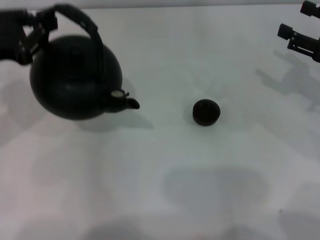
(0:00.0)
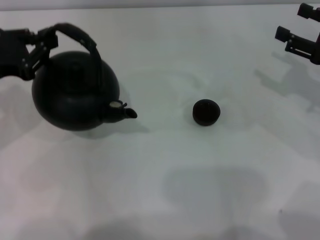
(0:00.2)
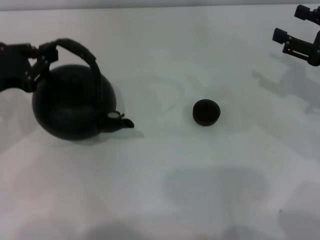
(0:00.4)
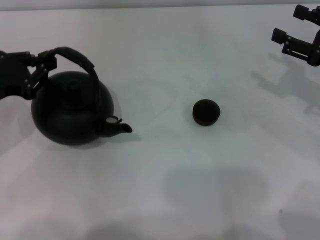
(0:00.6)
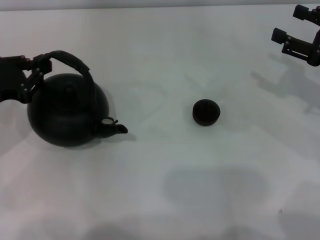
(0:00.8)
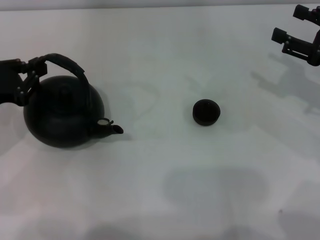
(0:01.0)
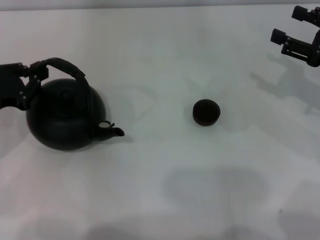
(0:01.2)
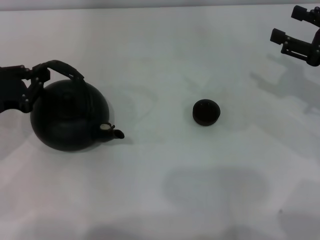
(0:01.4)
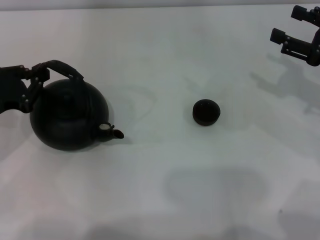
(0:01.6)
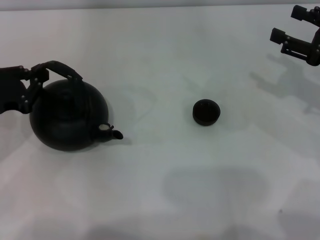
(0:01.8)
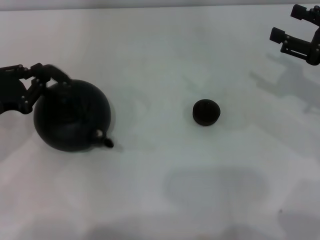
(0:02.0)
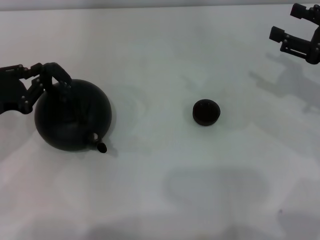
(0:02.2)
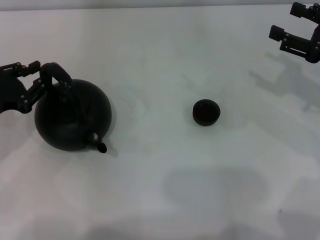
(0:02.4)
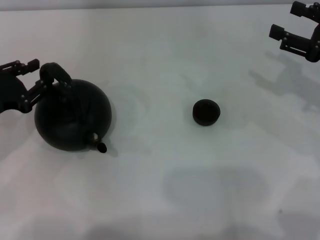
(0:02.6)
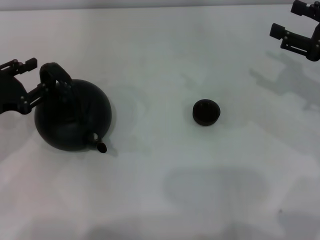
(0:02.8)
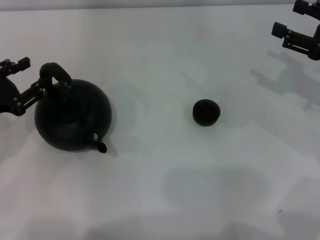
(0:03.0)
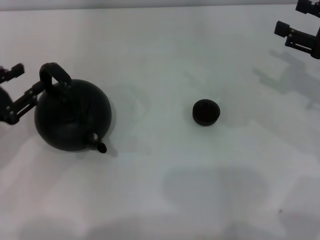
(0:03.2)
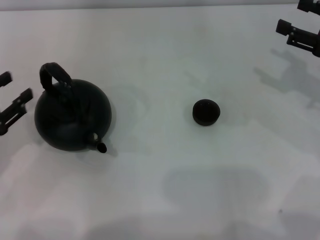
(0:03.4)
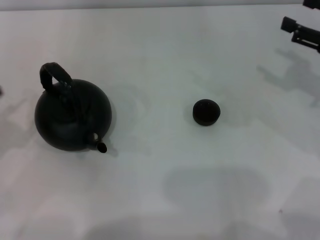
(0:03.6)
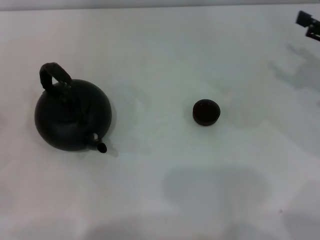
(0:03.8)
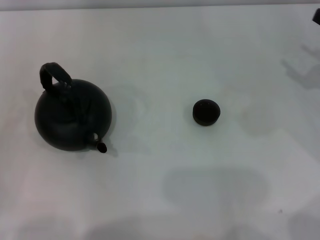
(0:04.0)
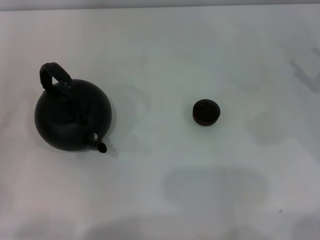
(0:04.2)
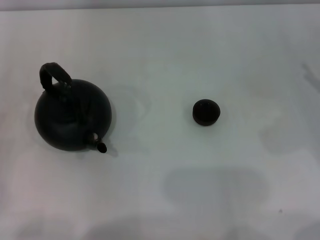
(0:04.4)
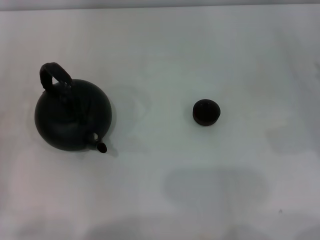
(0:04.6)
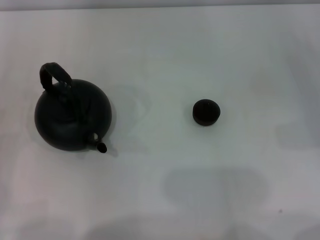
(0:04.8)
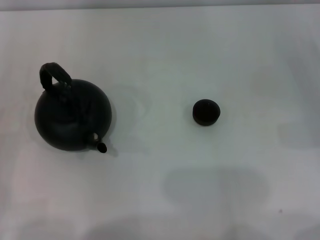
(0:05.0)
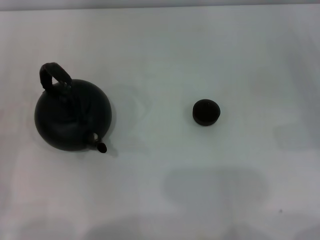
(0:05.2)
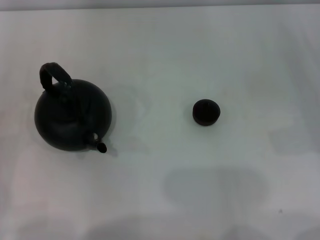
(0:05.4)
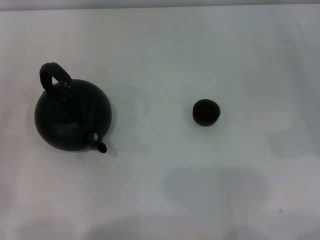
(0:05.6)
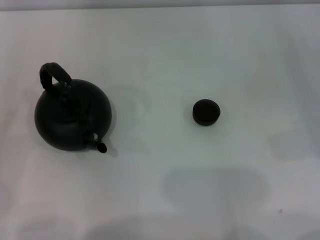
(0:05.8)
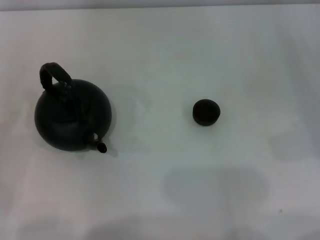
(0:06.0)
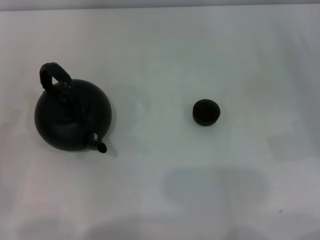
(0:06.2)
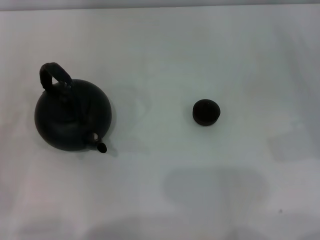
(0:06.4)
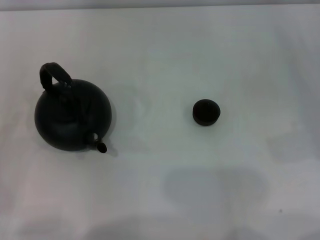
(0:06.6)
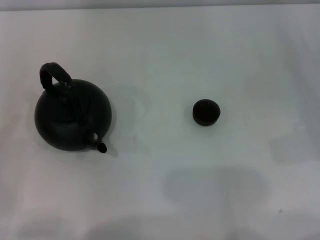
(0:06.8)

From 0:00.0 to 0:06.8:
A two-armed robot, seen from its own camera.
Task of the whole recording: Grasp the handle of the teapot with one hand and pour tea into the teacup.
Step, from 0:00.0 to 0:03.0: Put down the teapot with the left gripper.
From 0:00.0 to 0:01.4: The left gripper shifts roughly 10 cm downward.
From 0:01.4 to 0:02.8: The left gripper opens.
From 0:02.8 to 0:04.0: The left gripper is displaced backward and to the left by some 15 cm.

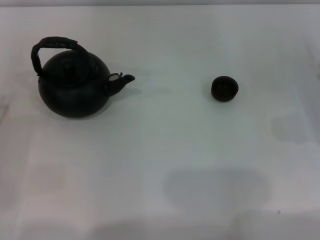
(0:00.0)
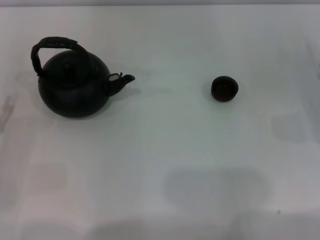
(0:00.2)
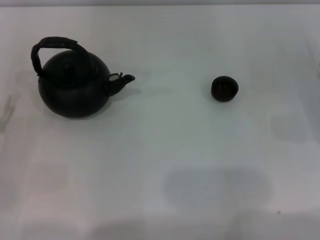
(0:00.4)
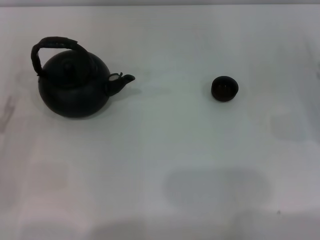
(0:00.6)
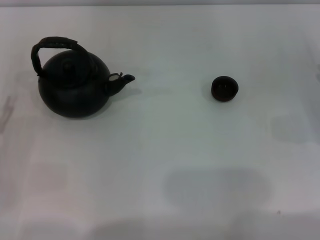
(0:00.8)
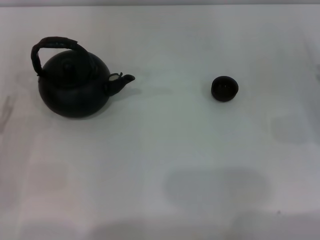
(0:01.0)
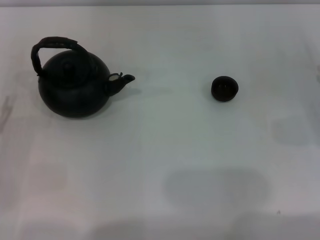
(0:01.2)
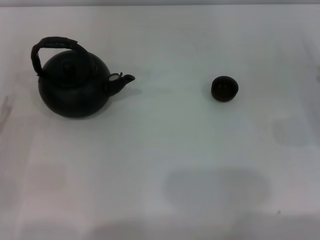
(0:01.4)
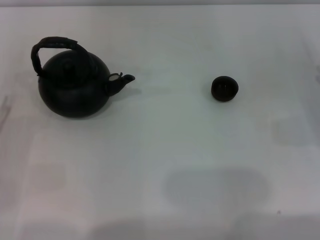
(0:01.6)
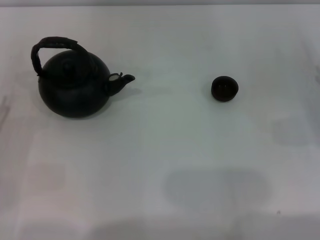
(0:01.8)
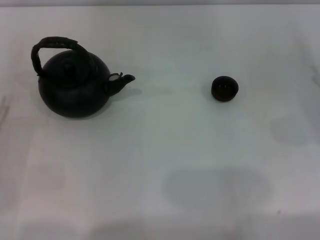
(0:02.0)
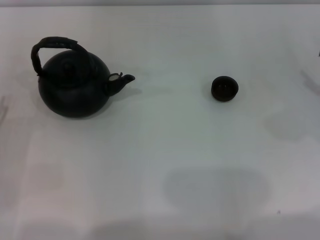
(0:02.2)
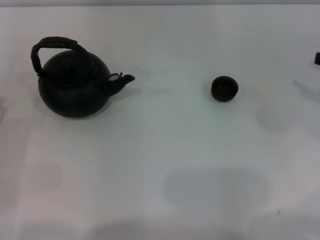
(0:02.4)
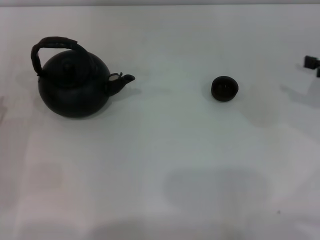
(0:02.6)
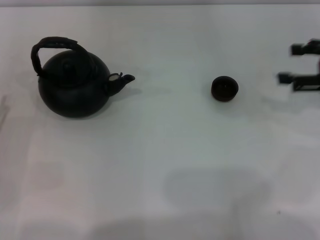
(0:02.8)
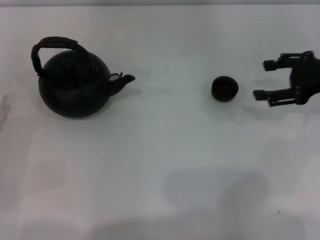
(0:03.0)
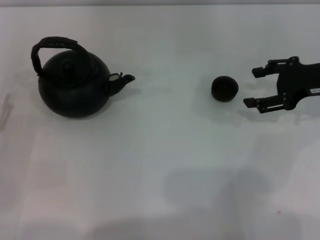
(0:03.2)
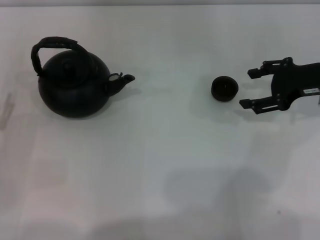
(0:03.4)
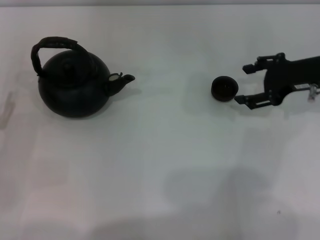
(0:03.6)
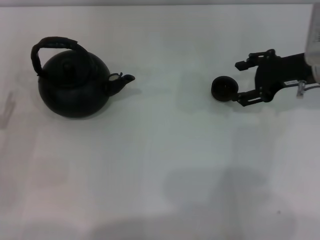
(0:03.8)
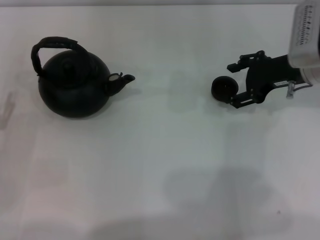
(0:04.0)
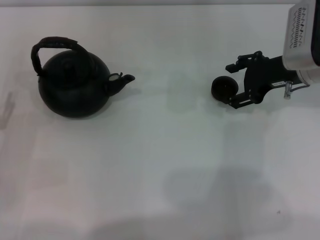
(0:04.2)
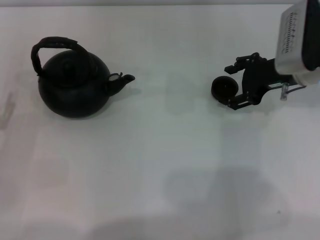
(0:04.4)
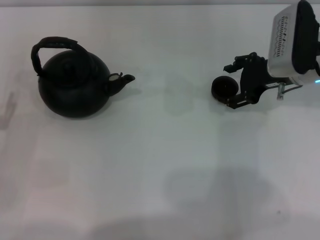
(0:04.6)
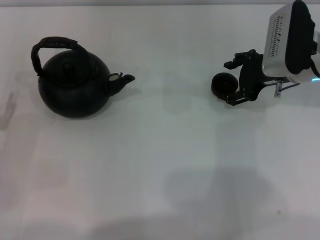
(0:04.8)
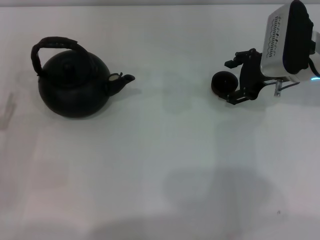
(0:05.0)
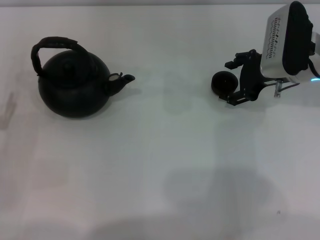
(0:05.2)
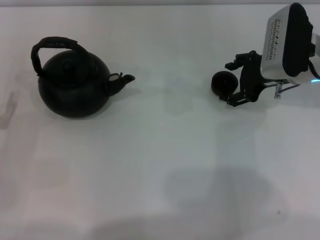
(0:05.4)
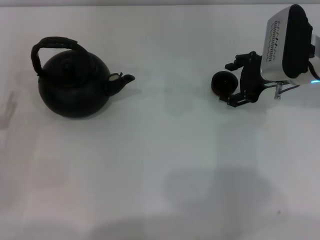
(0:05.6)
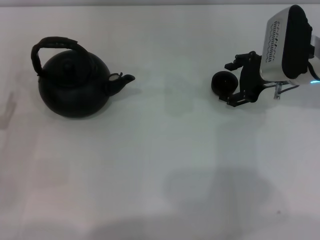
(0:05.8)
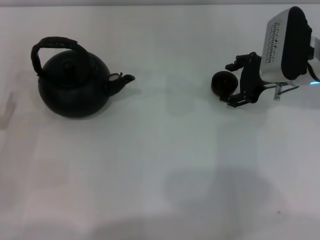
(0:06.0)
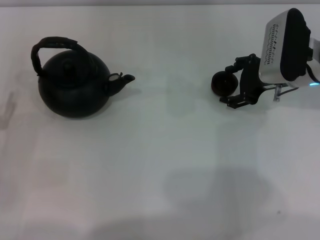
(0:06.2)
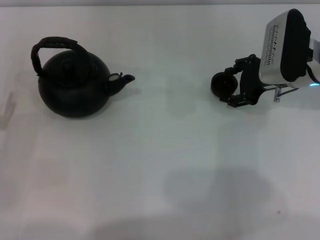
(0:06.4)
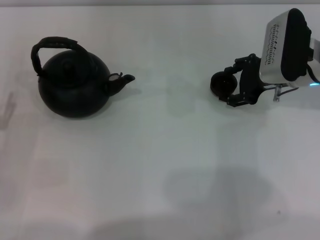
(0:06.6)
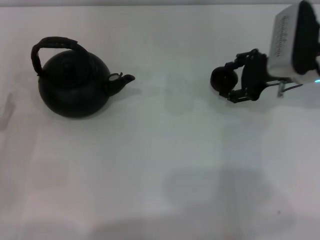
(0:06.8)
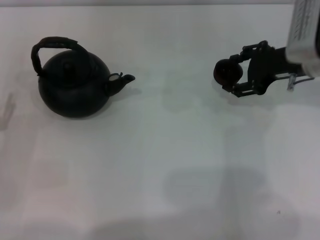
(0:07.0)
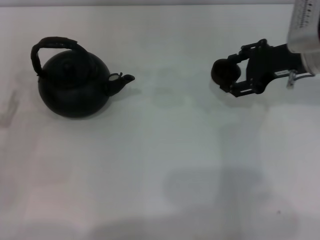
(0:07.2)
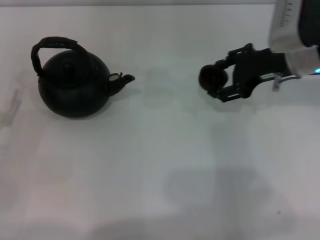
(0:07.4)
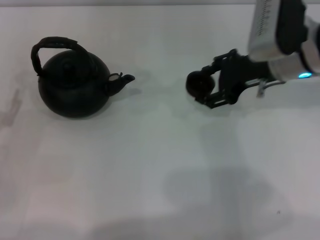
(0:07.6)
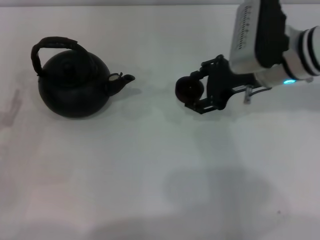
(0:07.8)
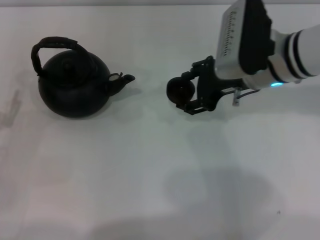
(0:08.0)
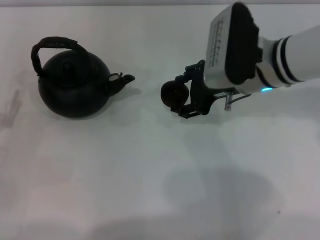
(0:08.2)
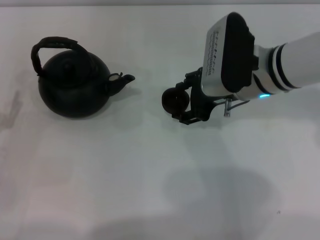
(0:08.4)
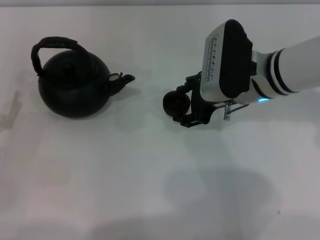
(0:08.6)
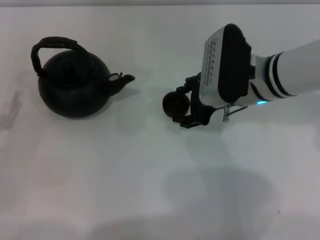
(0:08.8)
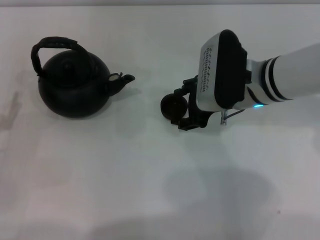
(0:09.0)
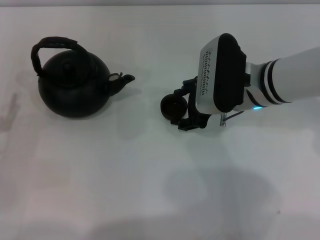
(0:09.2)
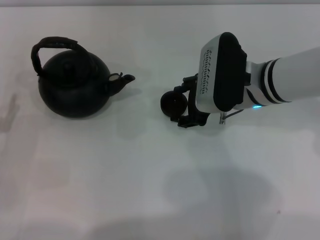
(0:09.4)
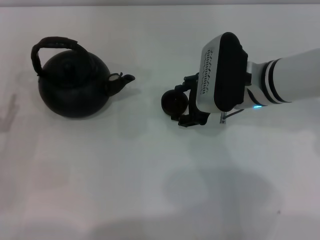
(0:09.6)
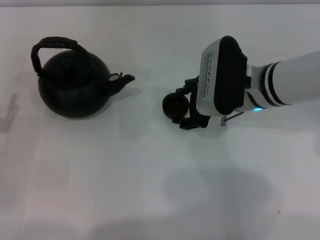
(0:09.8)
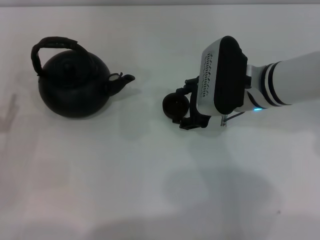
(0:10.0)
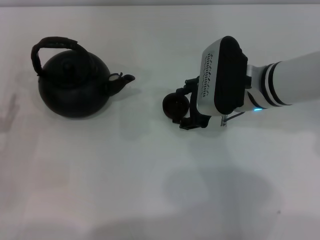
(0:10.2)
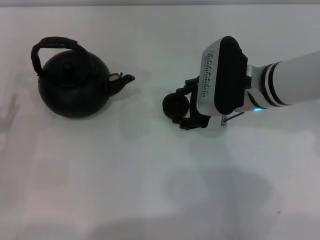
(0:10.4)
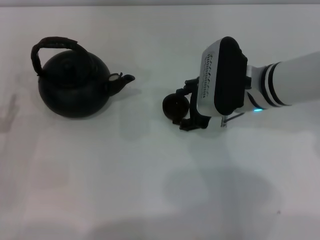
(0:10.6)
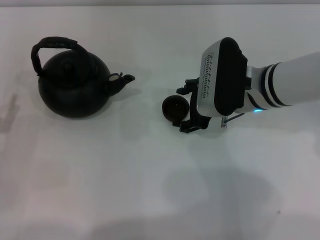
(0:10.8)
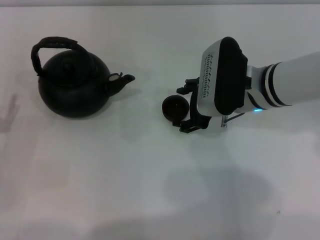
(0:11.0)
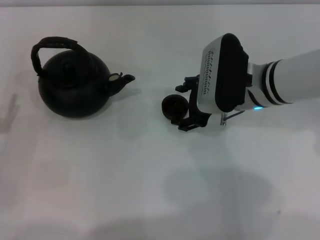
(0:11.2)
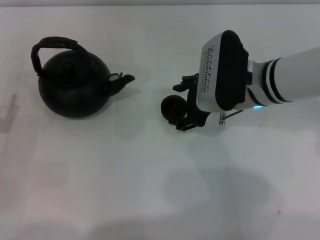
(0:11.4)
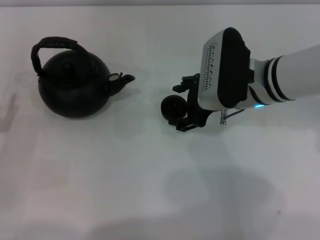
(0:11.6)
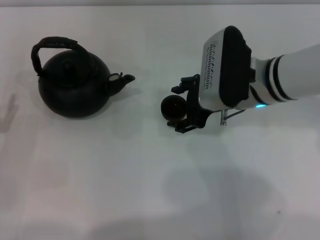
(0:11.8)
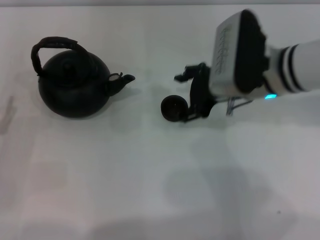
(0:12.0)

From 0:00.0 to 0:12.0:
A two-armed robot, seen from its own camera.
Task of the whole recording: Grasp the handle of the teapot with one hand and pour tea into the teacup.
Step, from 0:00.0 to 0:06.8: Pick up the teacup with the right gripper.
From 0:00.0 to 0:01.6: Both grippers stay about where they are.
From 0:01.6 to 0:03.0: The right gripper moves upward, forward and to the left, roughly 15 cm.
From 0:03.0 to 0:04.4: The right gripper shifts about 10 cm to the left.
From 0:04.4 to 0:06.0: The grippers move only a little.
From 0:06.0 to 0:07.6: The right gripper changes place by some 5 cm, and closes its fingers.
From 0:07.6 to 0:09.0: The right gripper travels to the left by roughly 5 cm.
From 0:09.0 to 0:10.4: Both grippers stay put.
From 0:10.4 to 0:12.0: The right gripper opens up.

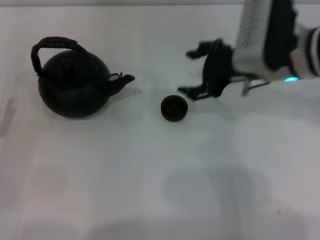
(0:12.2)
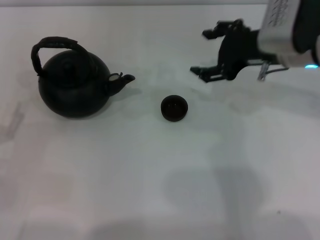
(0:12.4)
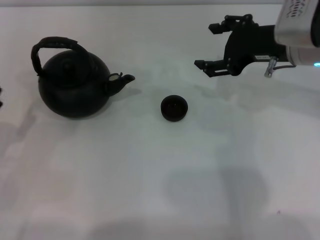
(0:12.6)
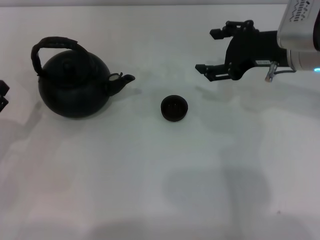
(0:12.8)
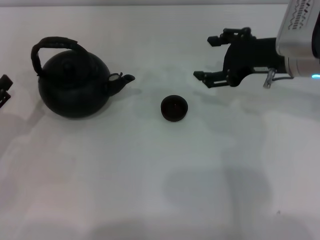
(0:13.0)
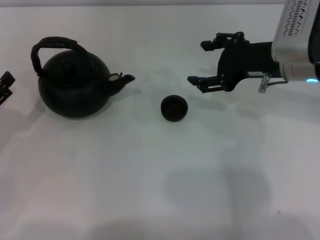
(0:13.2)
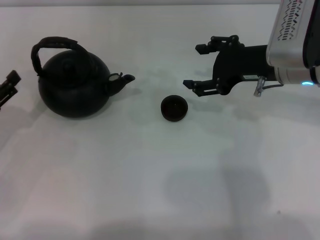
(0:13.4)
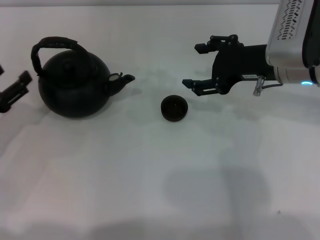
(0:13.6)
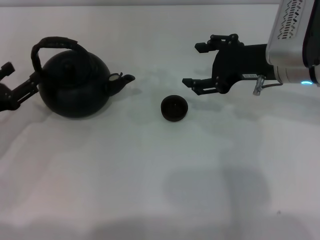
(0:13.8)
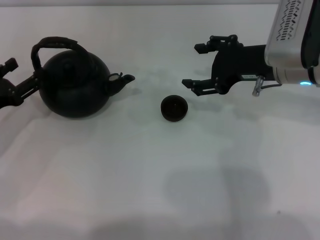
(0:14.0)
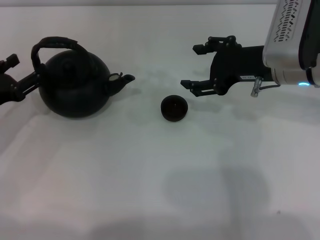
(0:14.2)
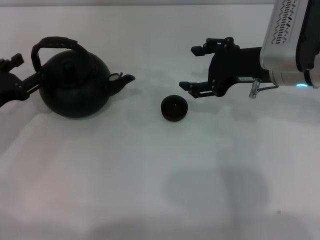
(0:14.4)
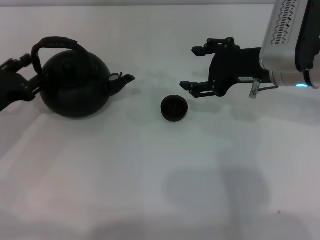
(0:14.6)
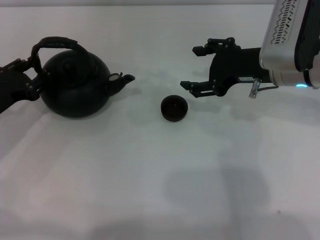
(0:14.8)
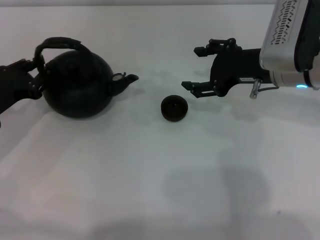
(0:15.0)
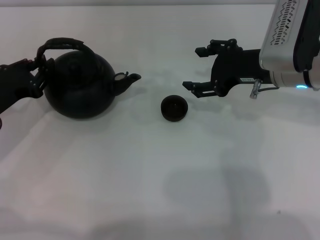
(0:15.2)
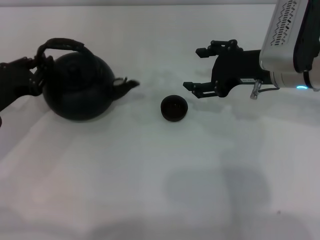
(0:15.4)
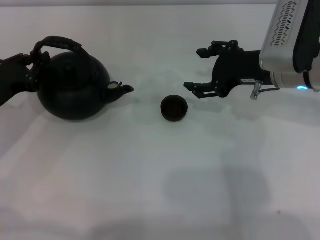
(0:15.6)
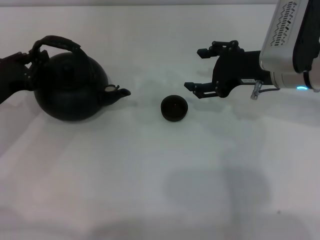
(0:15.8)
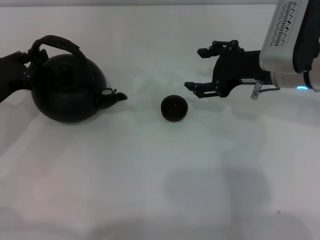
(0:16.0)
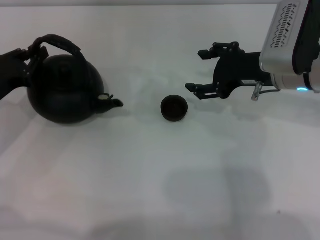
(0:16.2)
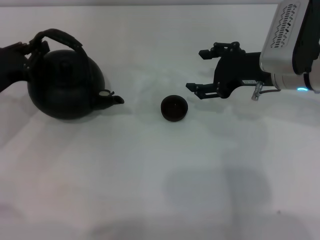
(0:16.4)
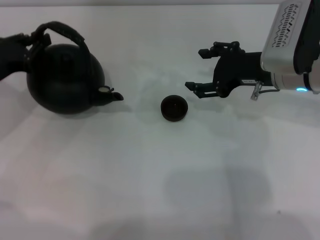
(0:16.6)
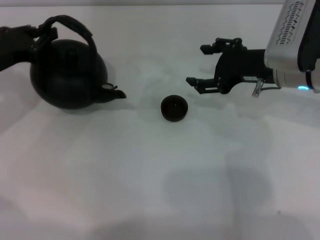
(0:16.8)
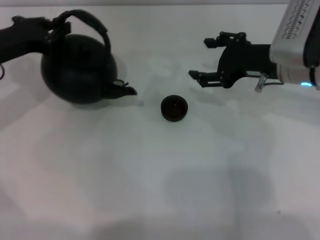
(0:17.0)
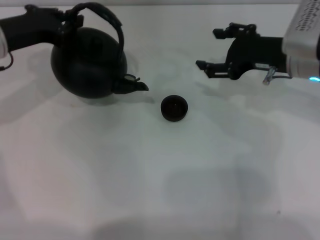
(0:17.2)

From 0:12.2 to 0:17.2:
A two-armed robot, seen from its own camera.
Task of the whole recording: Grasp the handle of the teapot with one hand and pour tea into the teacup.
From 0:12.2 to 0:13.8: The left gripper travels forward by some 5 cm.
From 0:13.8 to 0:15.6: The left gripper closes its fingers.
From 0:15.6 to 0:17.2: The left gripper is displaced upward and forward by roughly 10 cm.
